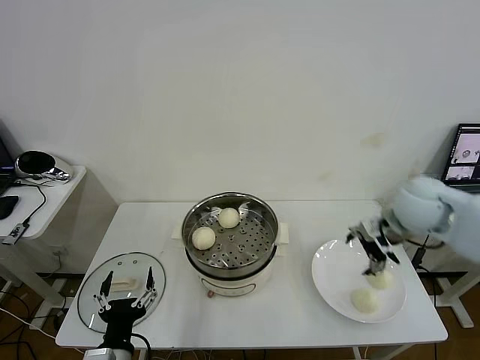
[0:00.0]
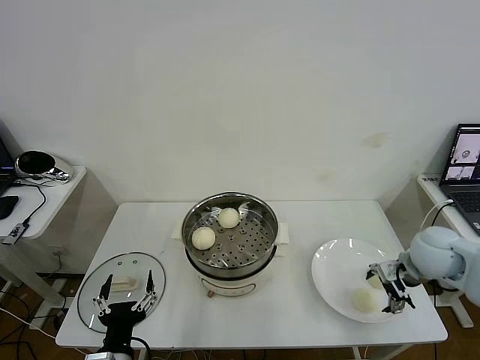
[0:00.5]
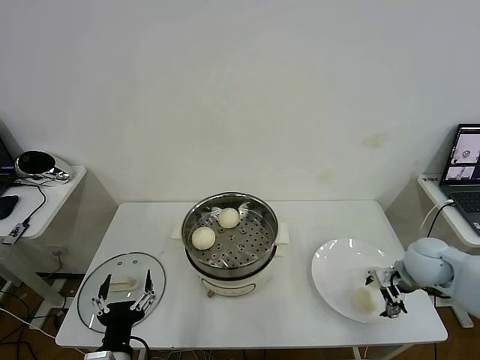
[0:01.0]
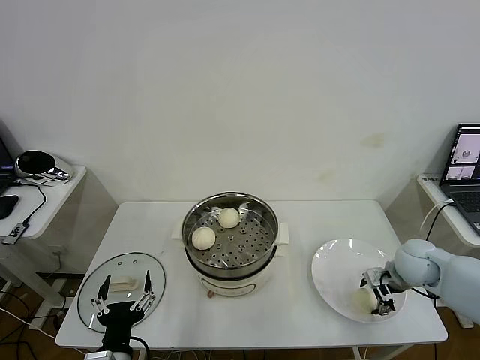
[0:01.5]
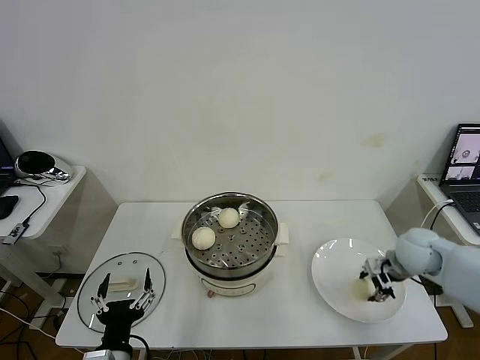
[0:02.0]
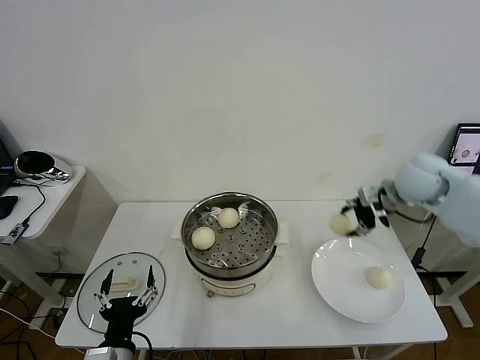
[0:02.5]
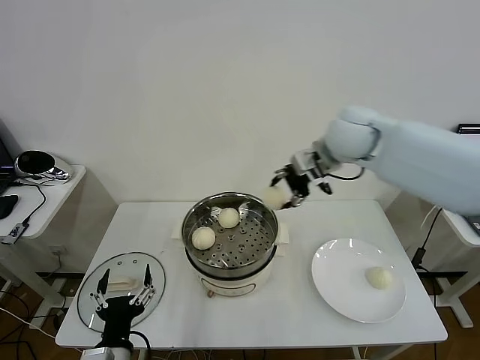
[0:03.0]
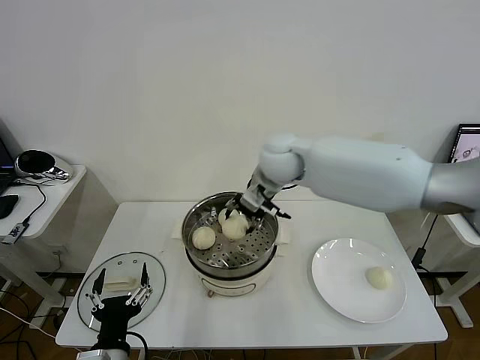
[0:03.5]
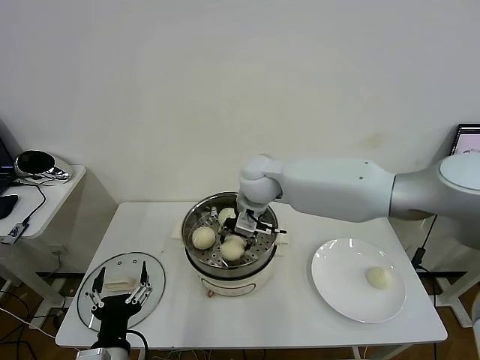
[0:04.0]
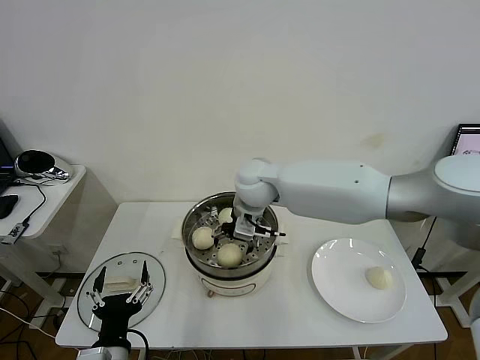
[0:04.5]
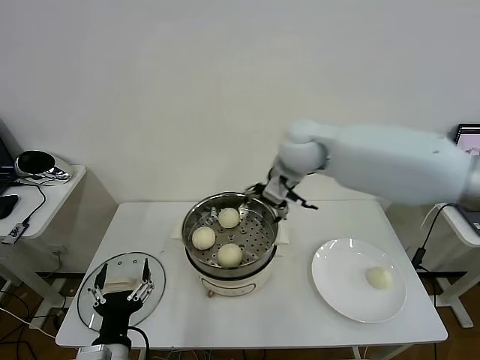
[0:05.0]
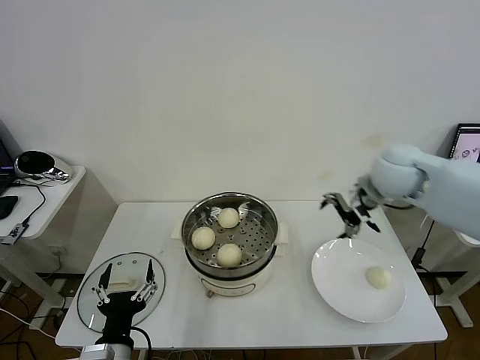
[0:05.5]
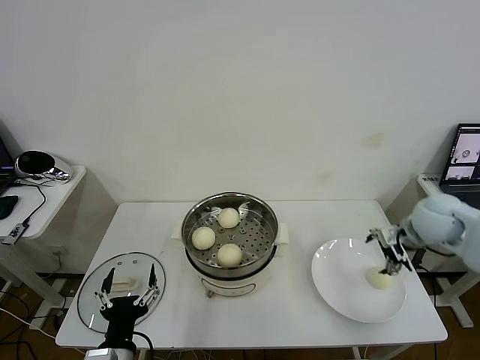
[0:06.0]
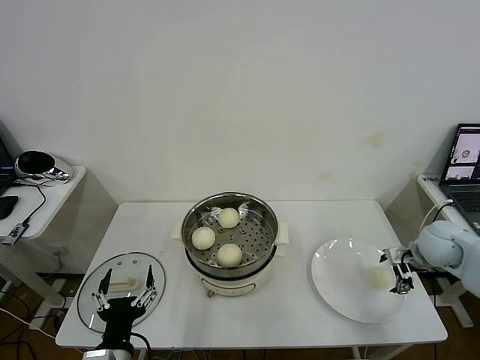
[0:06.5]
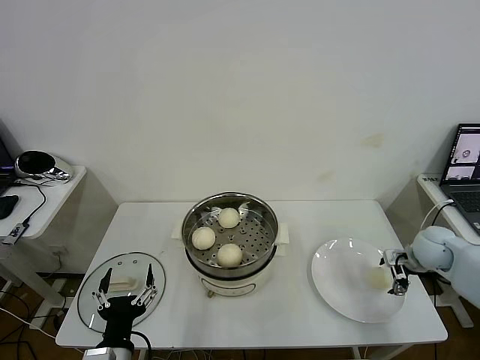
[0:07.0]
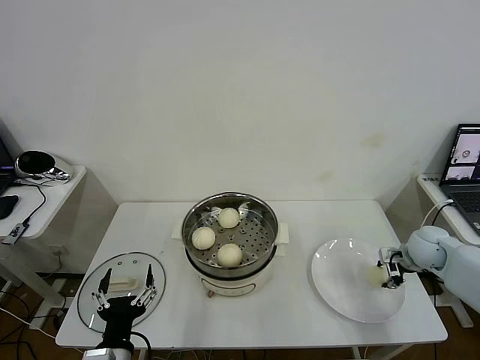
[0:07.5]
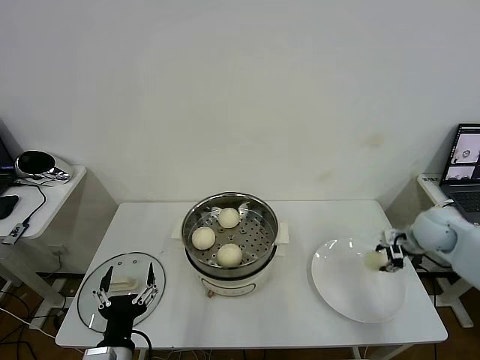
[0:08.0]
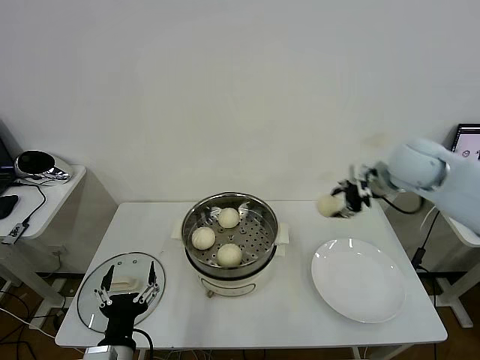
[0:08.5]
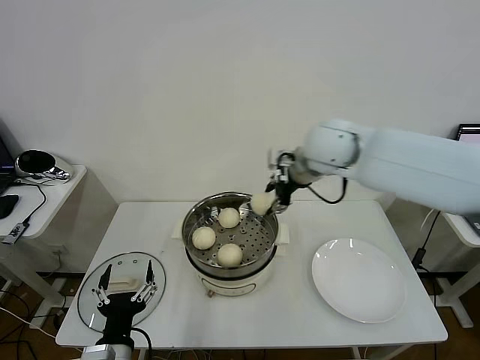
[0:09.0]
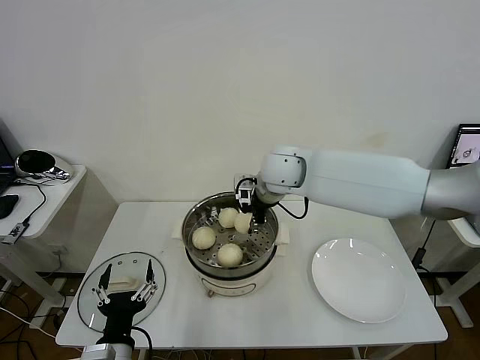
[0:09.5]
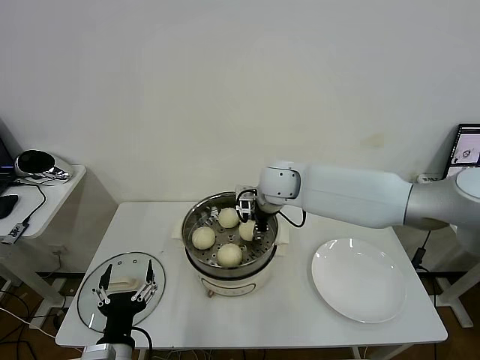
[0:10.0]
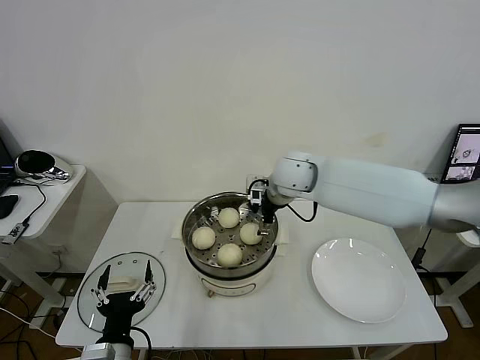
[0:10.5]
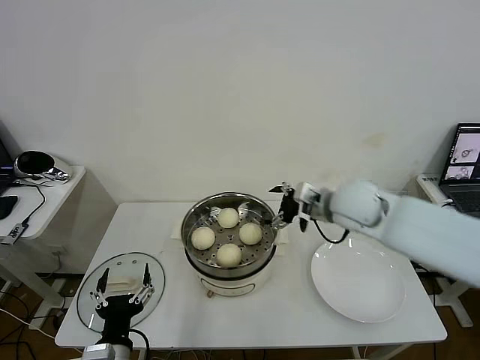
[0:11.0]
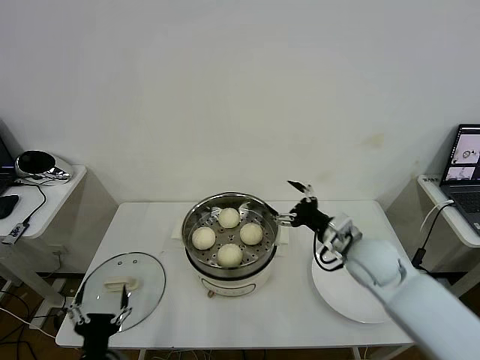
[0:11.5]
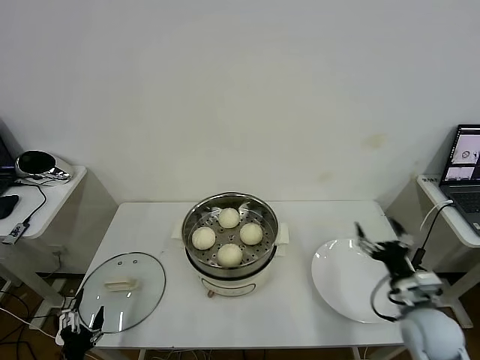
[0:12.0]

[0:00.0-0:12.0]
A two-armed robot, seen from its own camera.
Task of the whole recording: take steamed baozi put them in steamer then cover it.
Step, 0:00.0 to 0:01.5: Grasp the baozi in the plate with right gripper.
Step, 0:02.0 to 0:04.5: Place the baozi on the steamer with right gripper.
Step, 0:05.0 to 0:07.5: Grasp the baozi in the plate with right gripper.
Step, 0:08.0 to 0:10.0: Place the baozi on the steamer with right gripper.
0:00.0 to 0:02.0: The right gripper moves downward and to the right, approximately 15 cm, and closes.
0:02.0 to 0:04.0: The right gripper moves to the left, roughly 35 cm.
0:04.0 to 0:06.0: The right gripper heads to the right, covering roughly 35 cm, and opens up.
0:06.0 to 0:08.0: The right gripper is displaced downward by about 5 cm, and closes.
0:08.0 to 0:10.0: The right gripper travels to the left by approximately 35 cm.
0:10.0 to 0:12.0: The right gripper is displaced to the right, backward and downward by approximately 40 cm, and opens its fingers. Meanwhile the left gripper travels to the left and downward by about 15 cm.

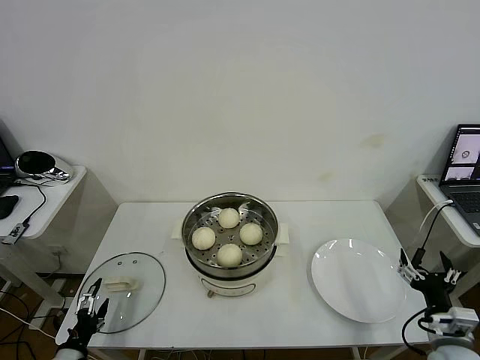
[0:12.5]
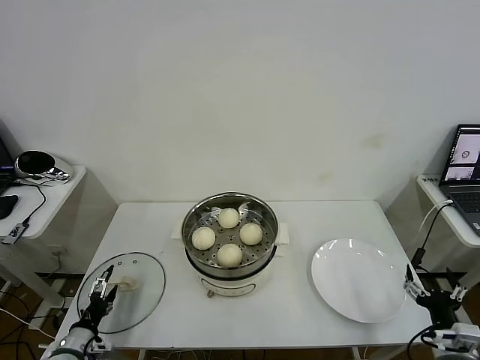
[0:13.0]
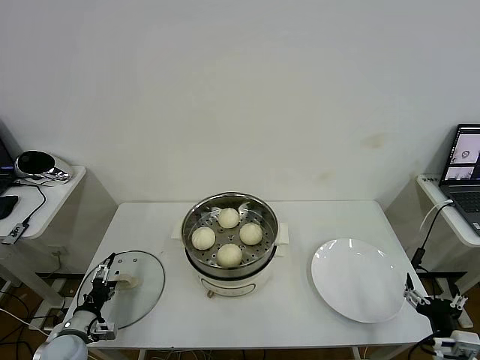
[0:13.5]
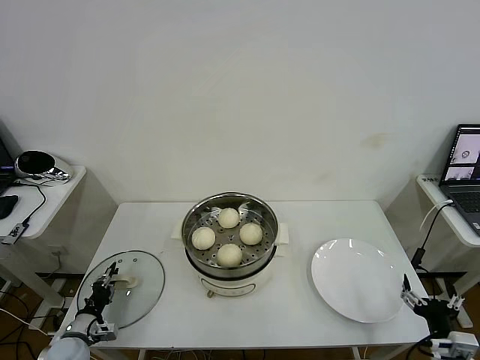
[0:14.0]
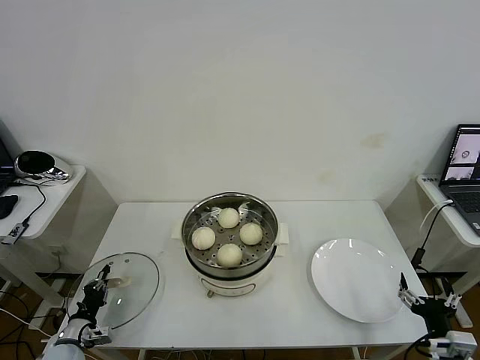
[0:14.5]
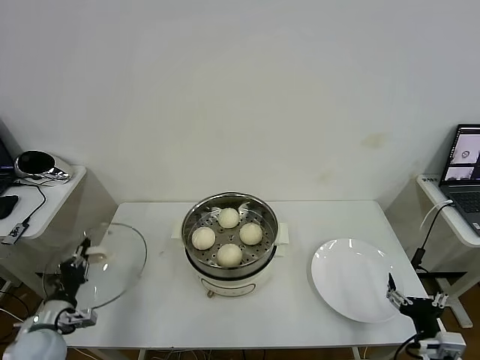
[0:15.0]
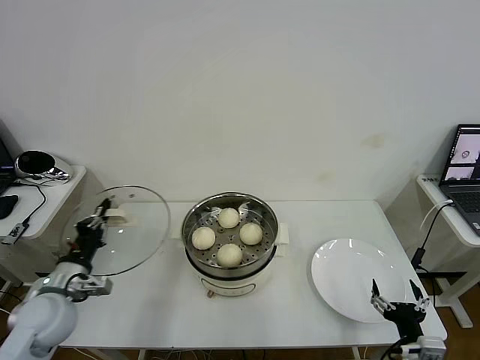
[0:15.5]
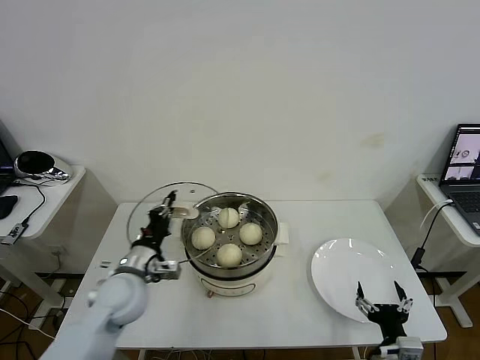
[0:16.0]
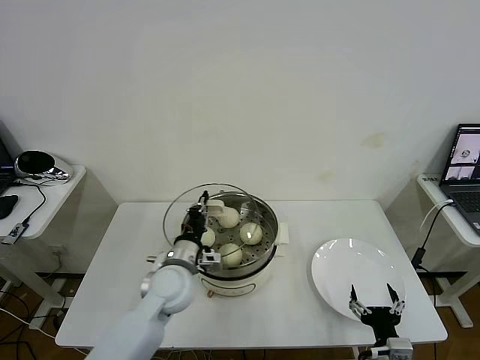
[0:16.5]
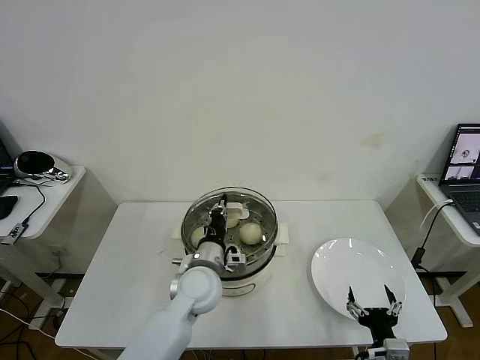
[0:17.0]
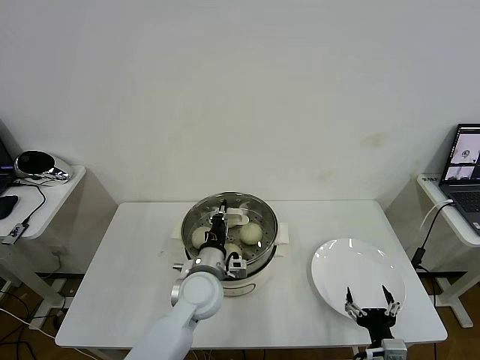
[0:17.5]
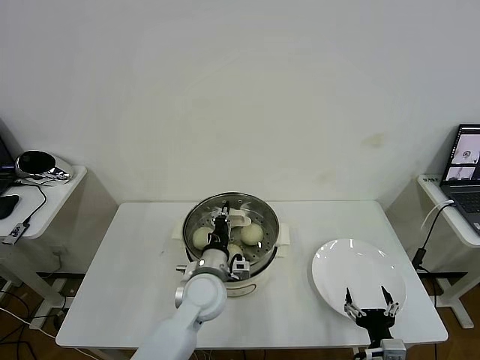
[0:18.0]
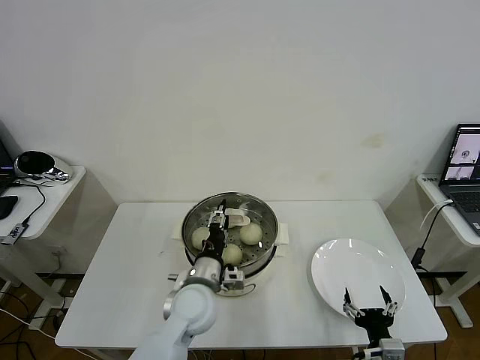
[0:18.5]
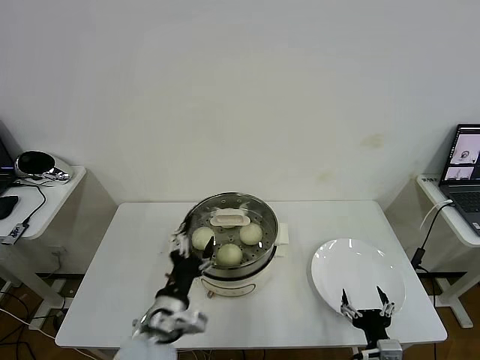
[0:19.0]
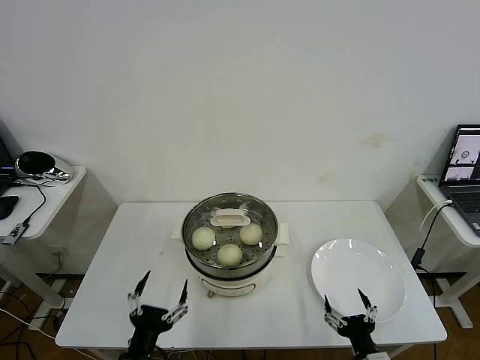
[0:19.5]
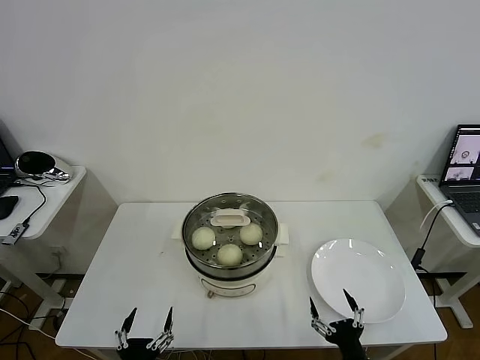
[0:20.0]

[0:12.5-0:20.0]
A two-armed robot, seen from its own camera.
Task of the whole recording: take steamed baozi put them in steamer then cover it.
Step, 0:14.5 to 0:18.5: Place the pot lid on the steamer with left gripper.
0:12.5 to 0:14.5: The left gripper goes some 10 cm forward, and closes.
0:14.5 to 0:16.5: The right gripper goes about 10 cm to the left. Meanwhile the left gripper shifts approximately 30 cm to the right and upward.
0:16.5 to 0:18.0: The left gripper shifts some 10 cm to the right.
0:18.0 to 0:20.0: The left gripper is displaced backward and to the left by about 30 cm, and opens its fingers; the right gripper ends up about 5 cm from where it was.

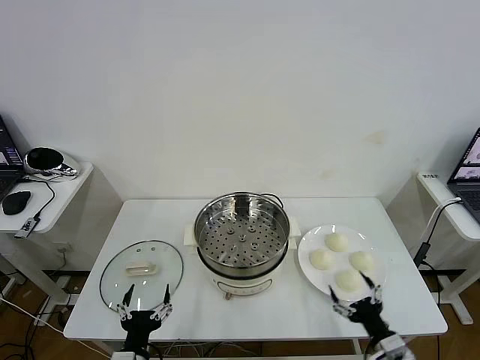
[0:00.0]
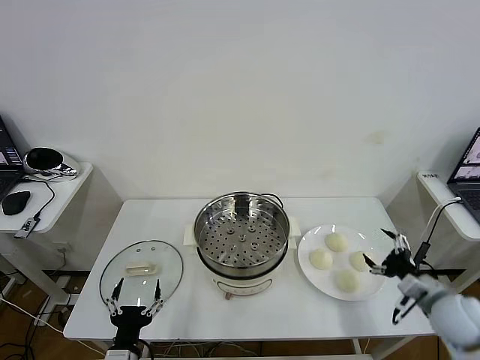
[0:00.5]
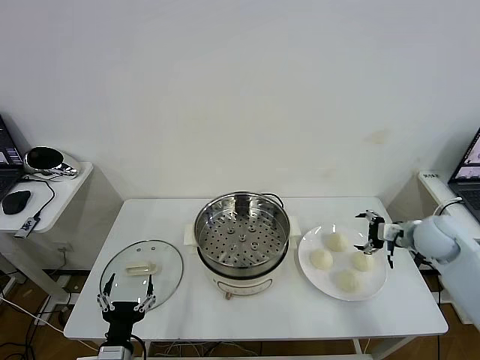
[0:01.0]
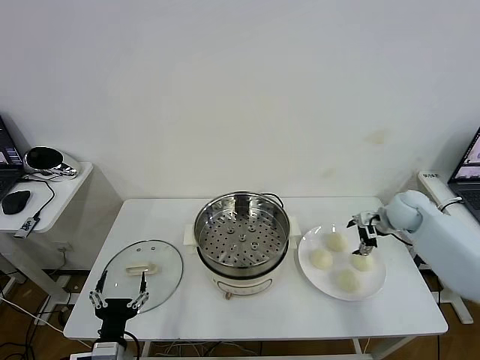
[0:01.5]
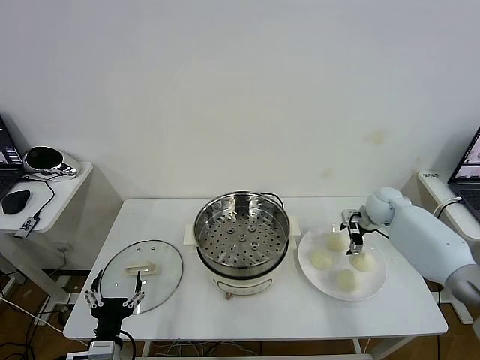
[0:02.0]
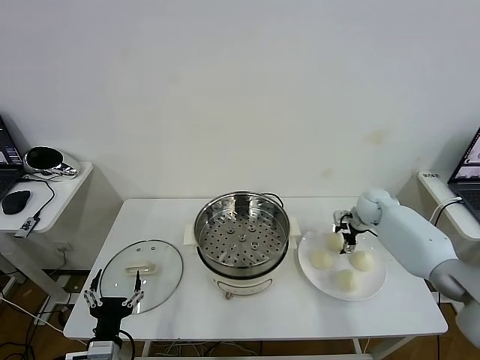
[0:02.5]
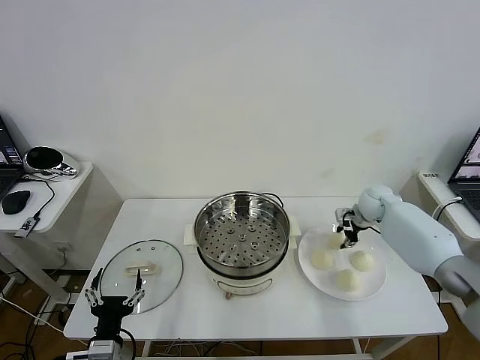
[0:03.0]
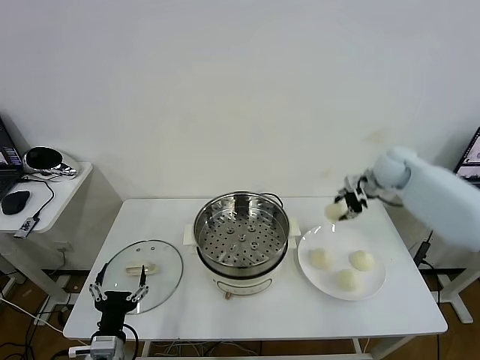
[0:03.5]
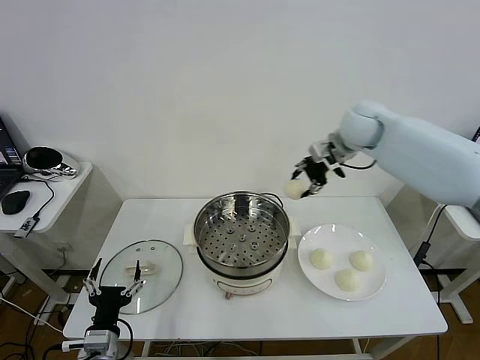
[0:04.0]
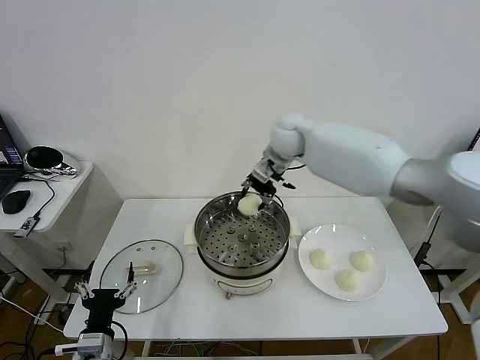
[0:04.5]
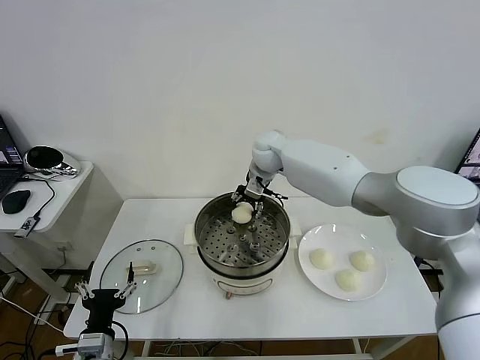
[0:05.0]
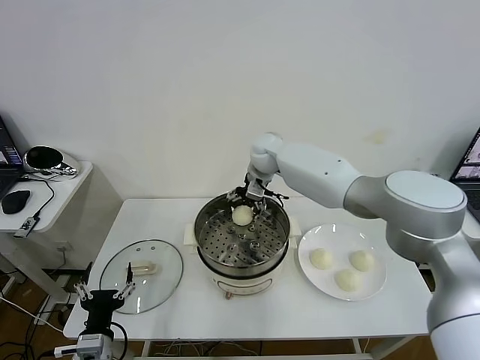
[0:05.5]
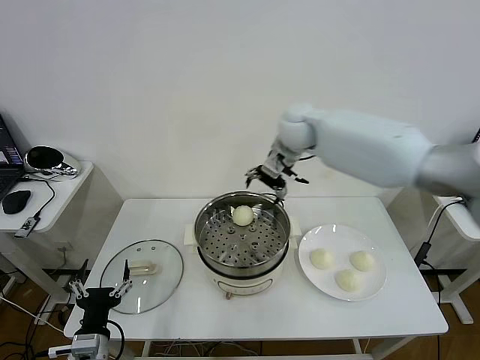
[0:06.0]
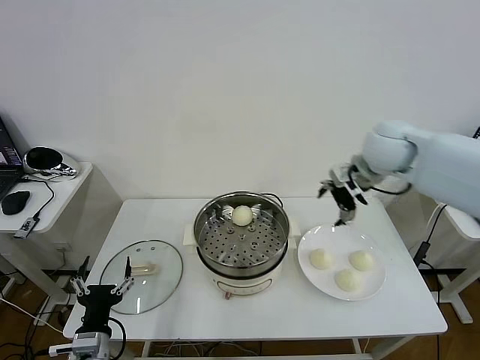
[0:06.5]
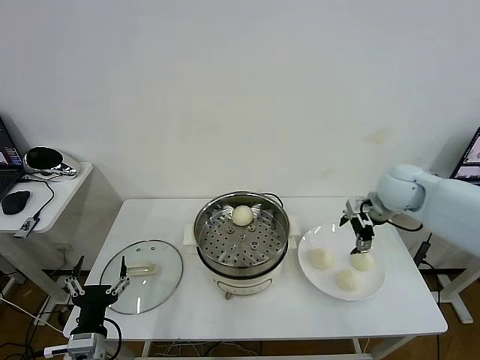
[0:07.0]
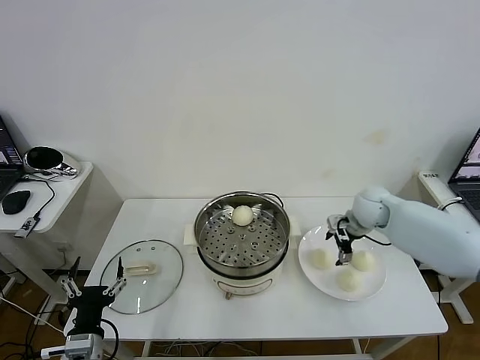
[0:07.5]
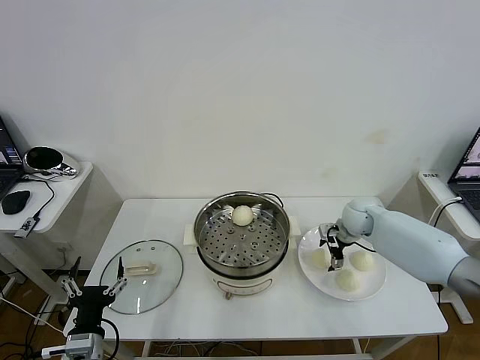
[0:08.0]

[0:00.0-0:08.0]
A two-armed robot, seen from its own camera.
Task of the whole recording: take steamed baozi put them in steamer then cover it.
Step, 0:00.0 to 0:02.5: Grasp the baozi in the plate with right gripper.
Step, 0:03.0 to 0:05.5: Place the baozi on the steamer with right gripper.
0:02.0 to 0:04.0: The right gripper is displaced upward and to the left by approximately 25 cm, and closes.
0:04.0 to 0:06.0: The right gripper is displaced to the left by roughly 10 cm, and opens its fingers.
0:06.0 to 0:08.0: The right gripper heads downward and to the right, covering roughly 30 cm.
